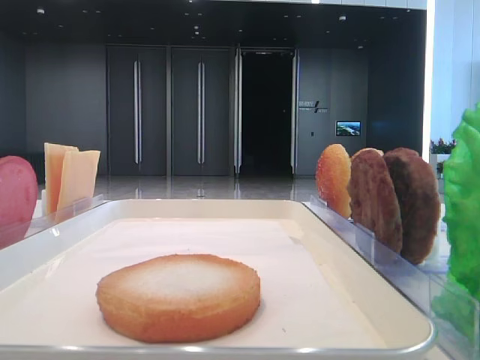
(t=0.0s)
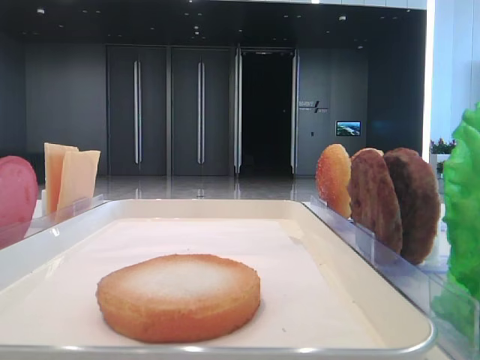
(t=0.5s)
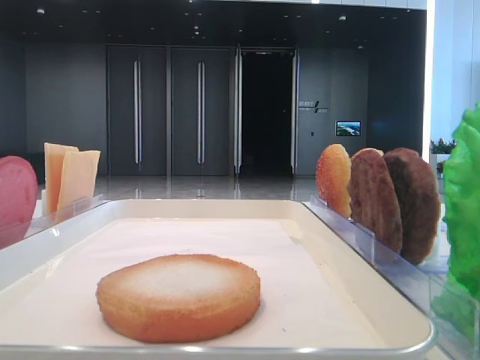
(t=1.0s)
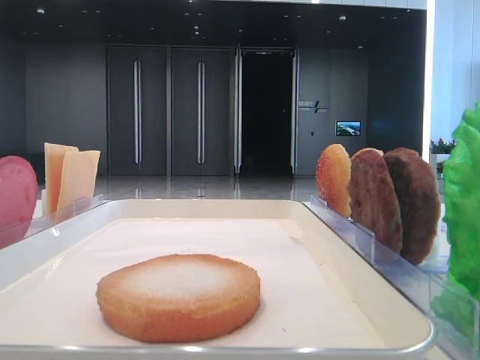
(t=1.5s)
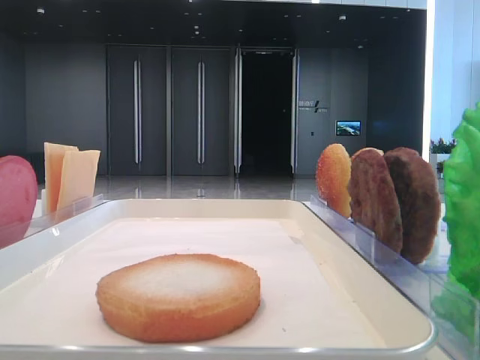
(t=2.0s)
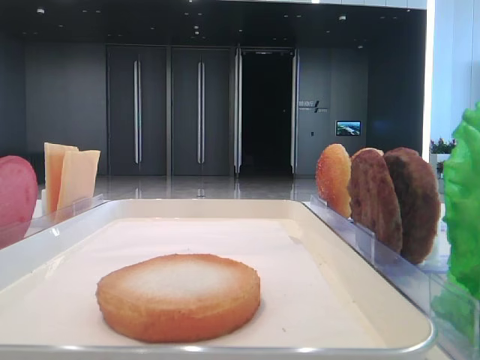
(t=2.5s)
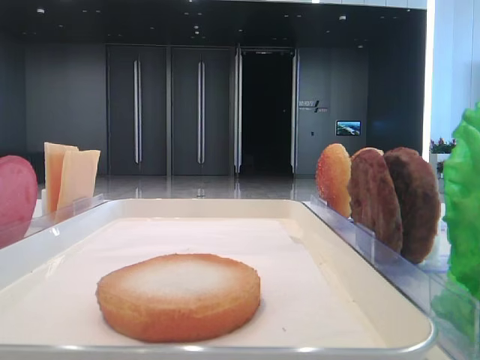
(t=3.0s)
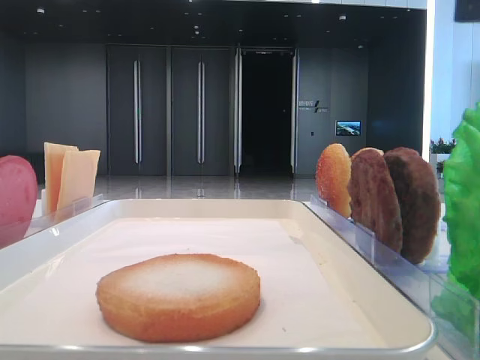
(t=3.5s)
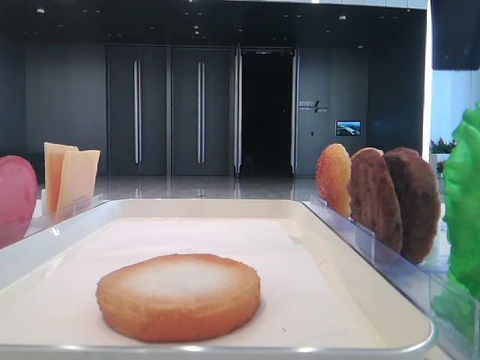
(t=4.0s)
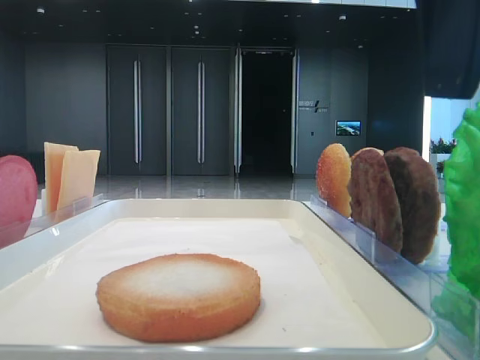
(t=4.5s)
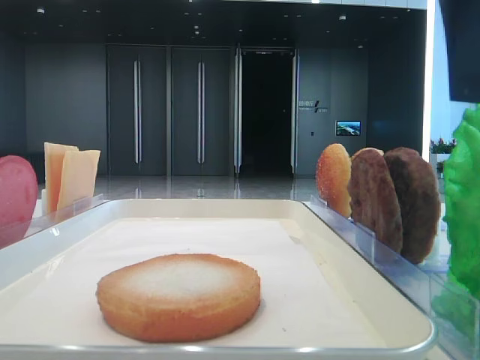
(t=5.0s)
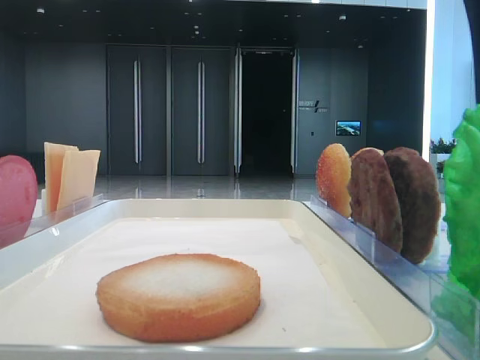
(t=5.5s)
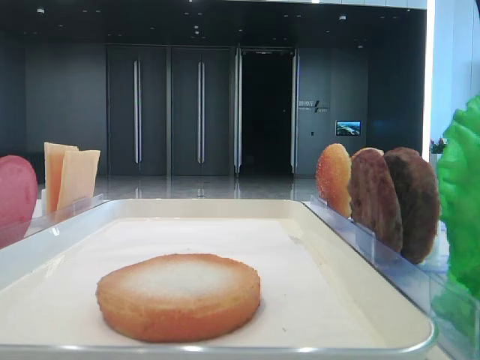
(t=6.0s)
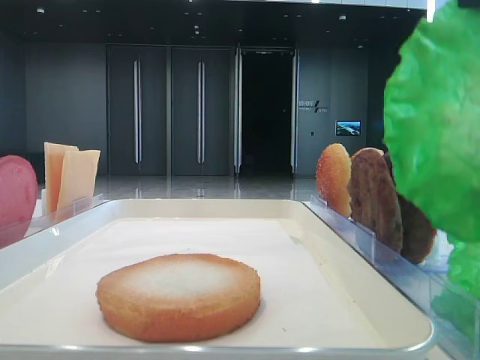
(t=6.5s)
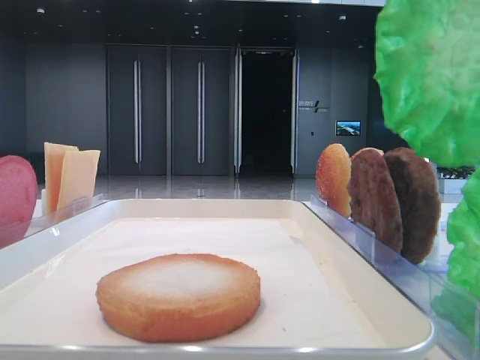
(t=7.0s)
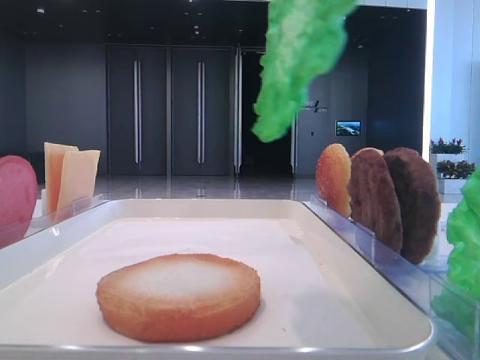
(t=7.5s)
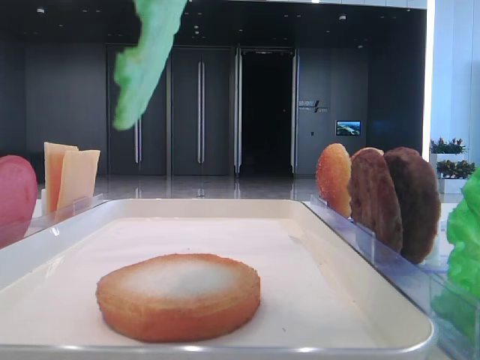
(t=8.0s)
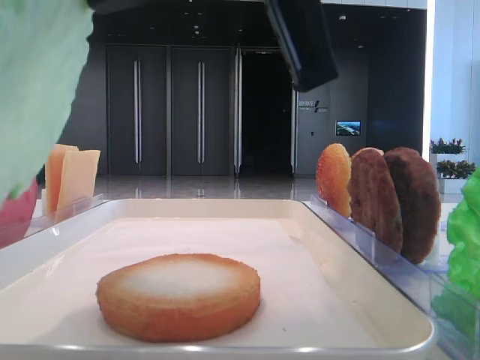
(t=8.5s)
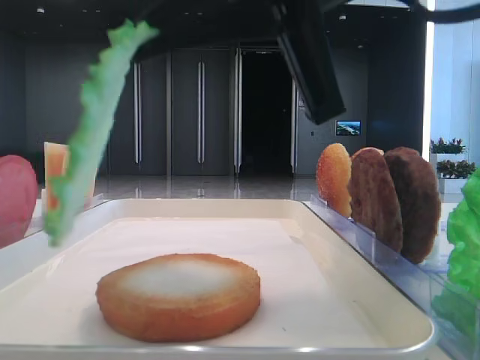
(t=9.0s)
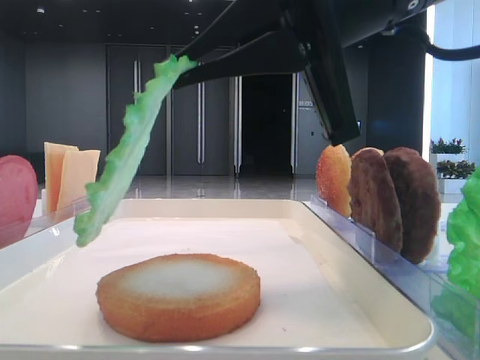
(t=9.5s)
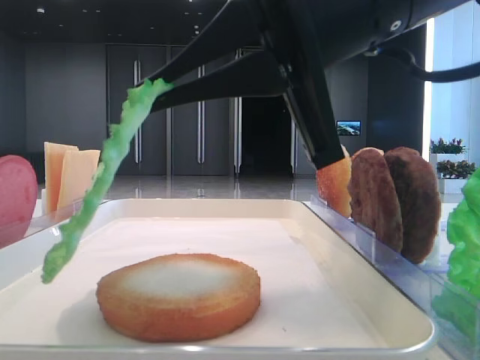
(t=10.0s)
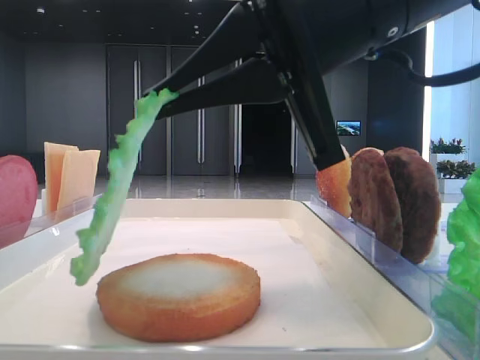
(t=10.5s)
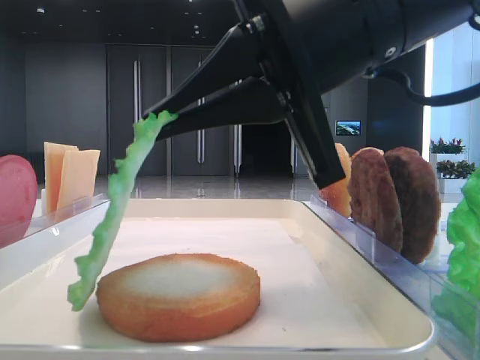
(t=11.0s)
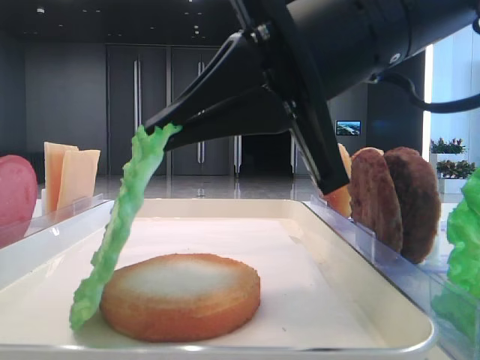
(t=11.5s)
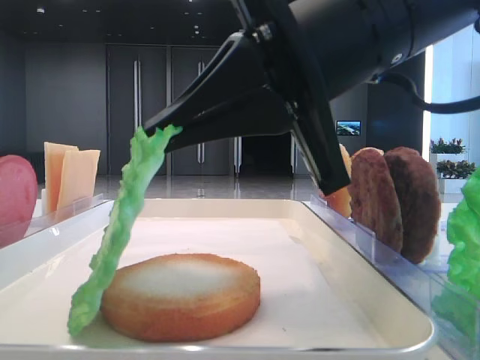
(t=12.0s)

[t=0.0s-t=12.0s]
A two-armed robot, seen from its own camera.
Step, t=0.0s to t=6.0s: Grab the lettuce leaf with the right hand.
t=2.0s to t=4.0s: The right gripper goes approximately 15 cm to the left.
t=4.0s to t=6.0s: The right gripper closes.
t=8.0s to t=10.0s: The right gripper shifts roughly 10 cm downward.
t=10.0s to t=12.0s: The grippers move only a little.

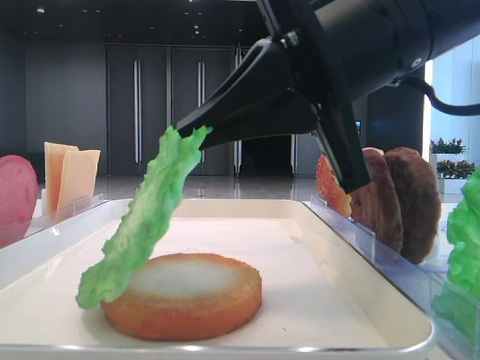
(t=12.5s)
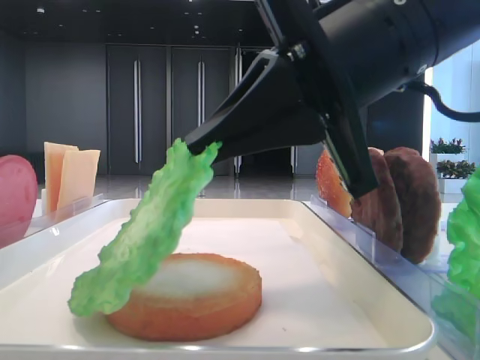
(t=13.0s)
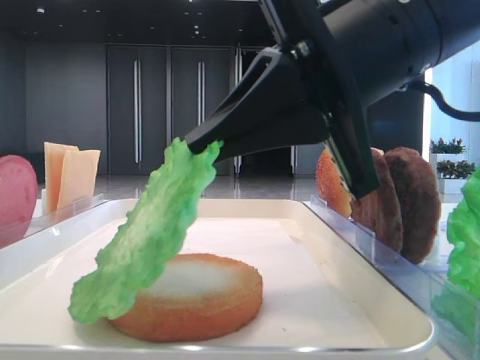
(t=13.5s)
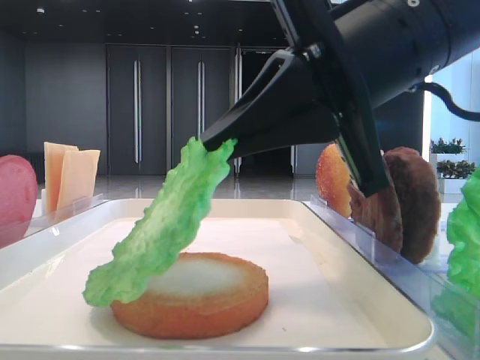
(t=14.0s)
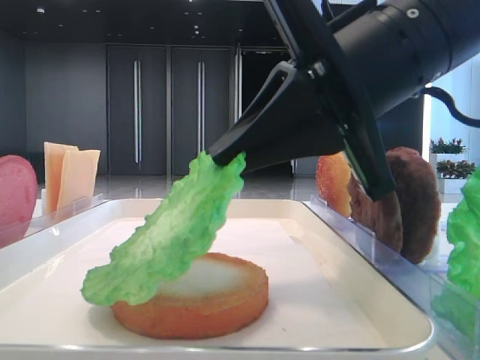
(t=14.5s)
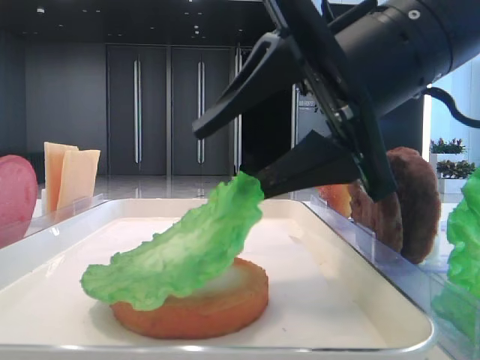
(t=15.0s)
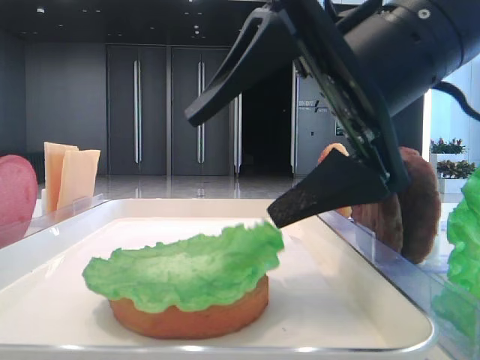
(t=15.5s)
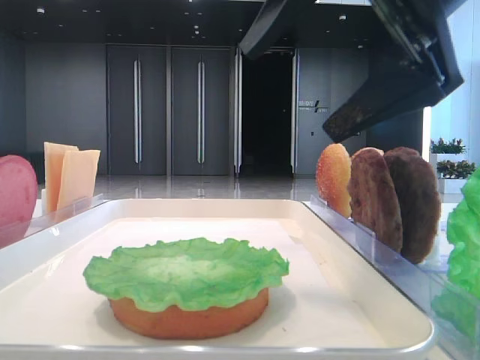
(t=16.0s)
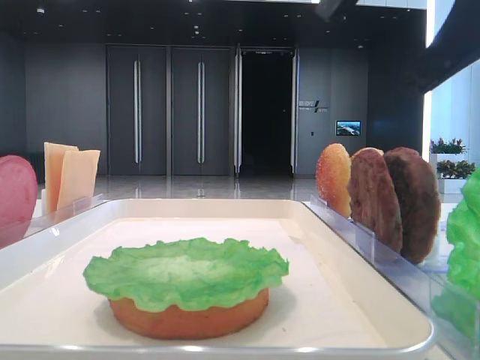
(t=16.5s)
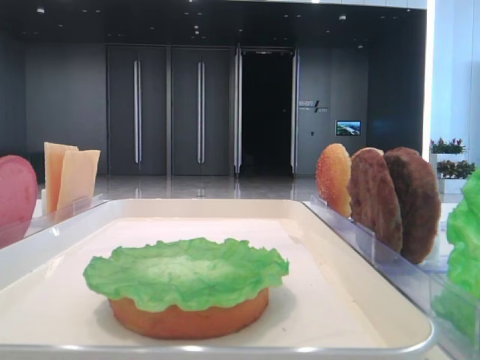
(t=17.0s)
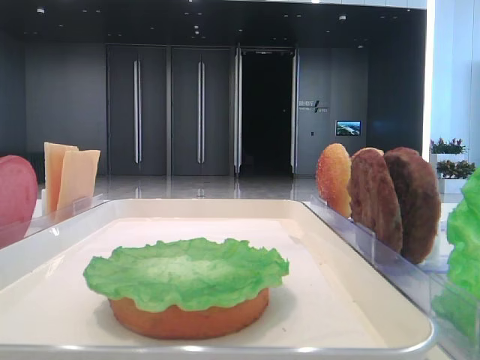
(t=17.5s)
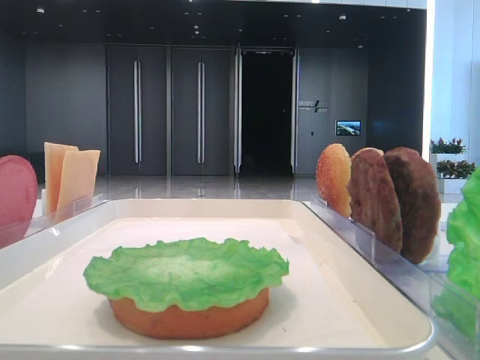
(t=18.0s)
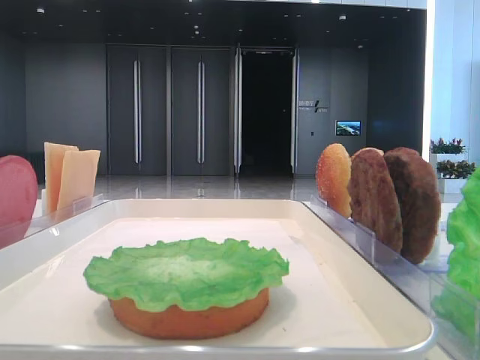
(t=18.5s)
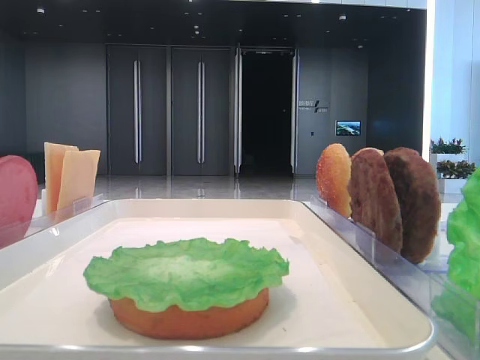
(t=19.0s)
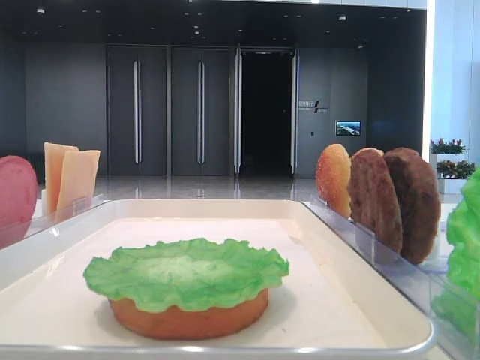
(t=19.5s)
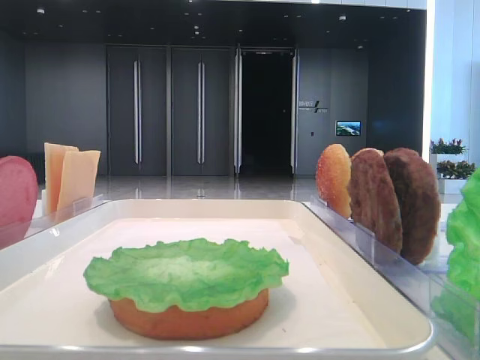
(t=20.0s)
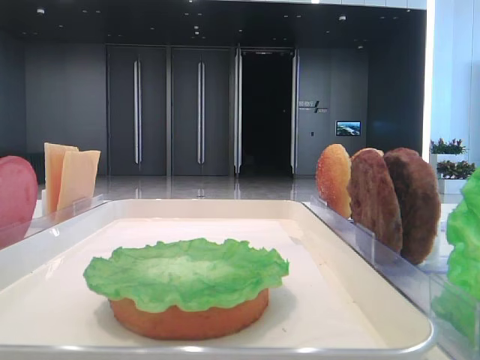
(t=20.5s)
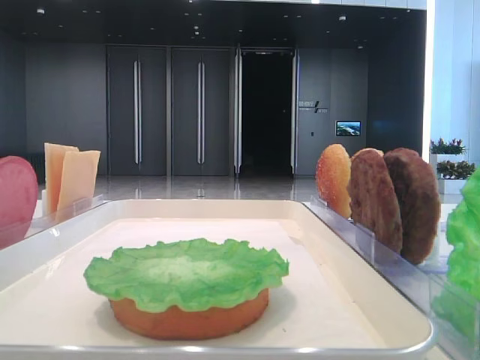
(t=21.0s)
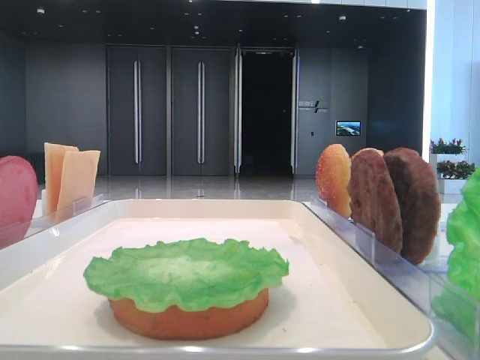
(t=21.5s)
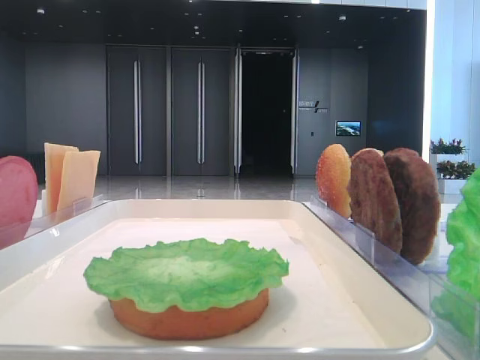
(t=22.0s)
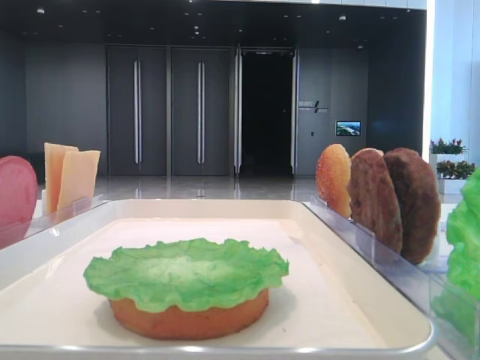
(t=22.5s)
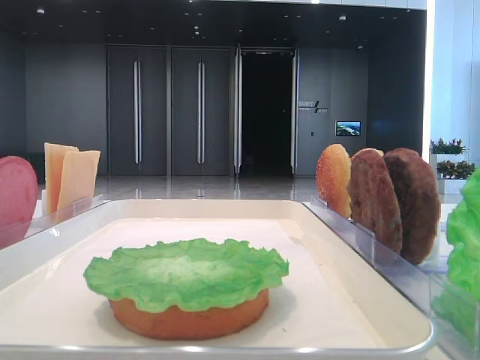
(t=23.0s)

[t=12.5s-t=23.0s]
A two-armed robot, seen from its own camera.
Step, t=12.5s to t=15.0s: Place the lettuce leaf on the bottom bread with the right hand.
t=12.5s to t=14.5s: The grippers stay close to where they were, moving slightly.
t=14.5s to t=16.5s: The right gripper goes about 10 cm upward and to the right, and opens its fingers.
t=16.5s to t=19.0s: The right gripper is displaced to the right and upward by roughly 20 cm.
t=21.0s to t=23.0s: Both grippers stay put.

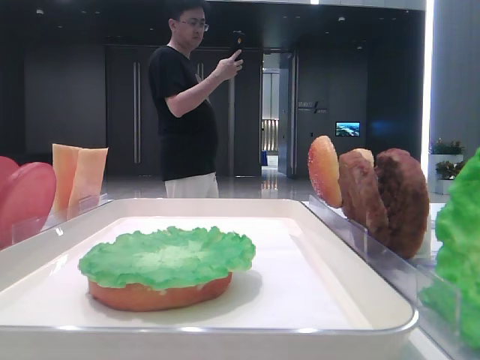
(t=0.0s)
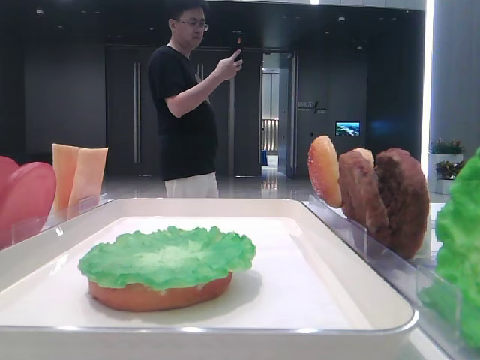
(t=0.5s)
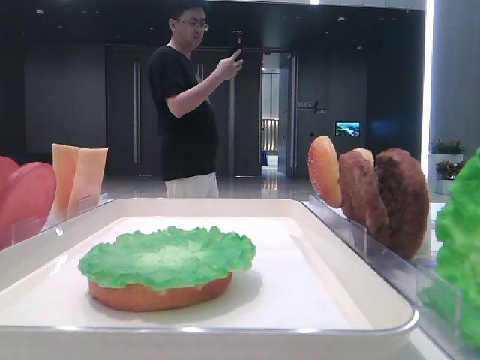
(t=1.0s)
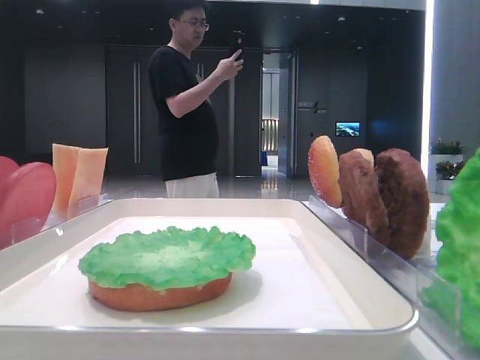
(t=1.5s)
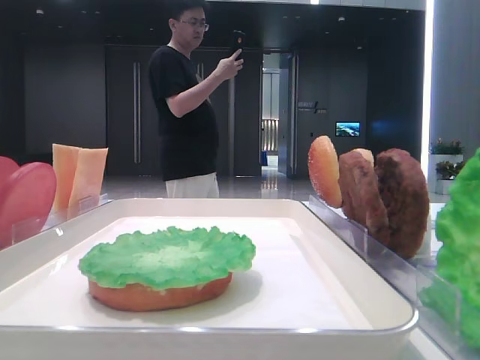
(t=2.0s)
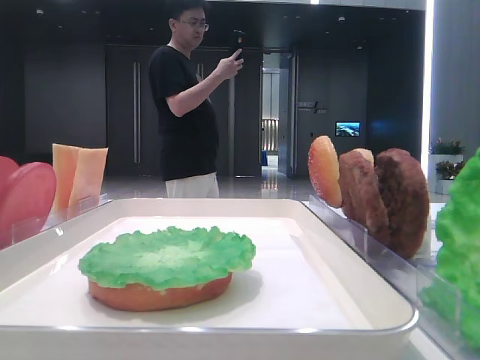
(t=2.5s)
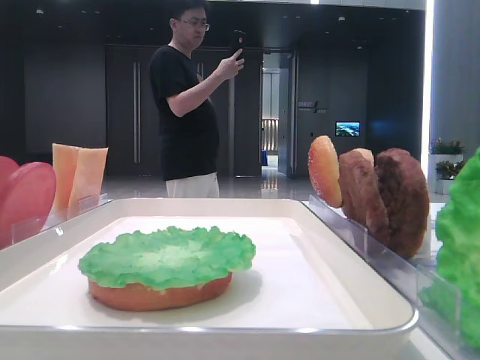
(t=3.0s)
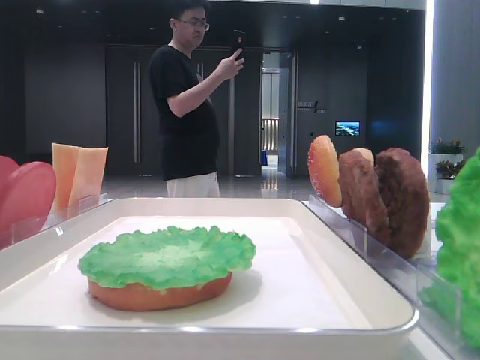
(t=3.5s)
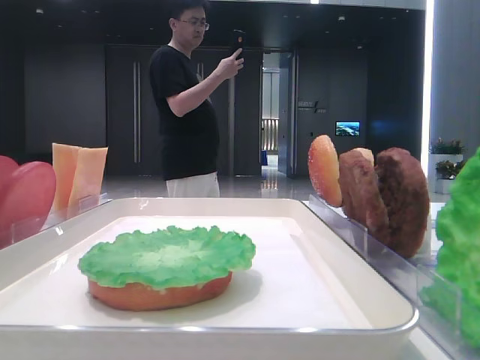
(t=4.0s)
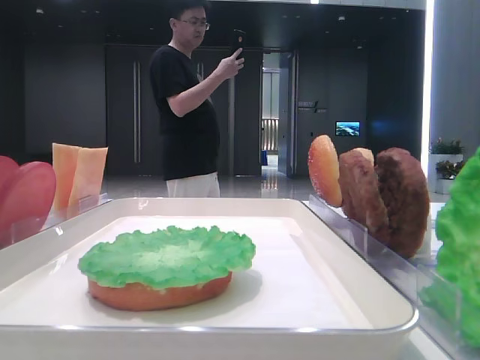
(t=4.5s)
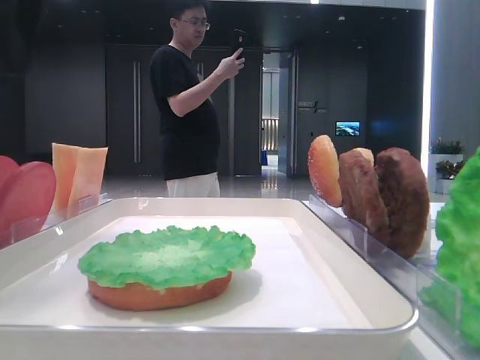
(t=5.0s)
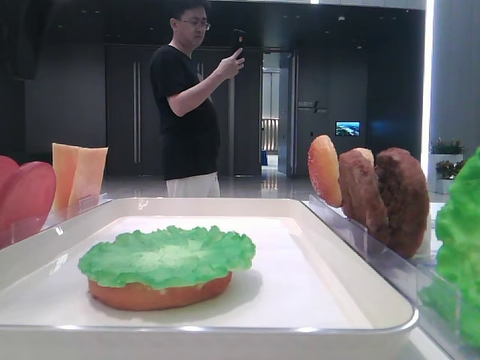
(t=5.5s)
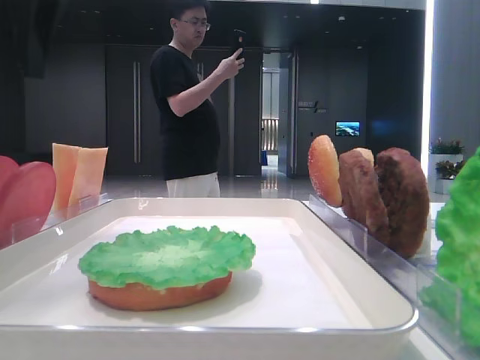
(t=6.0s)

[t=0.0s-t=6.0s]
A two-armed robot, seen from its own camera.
t=4.0s to t=6.0s: The left gripper is displaced to the right and downward by approximately 10 cm.
